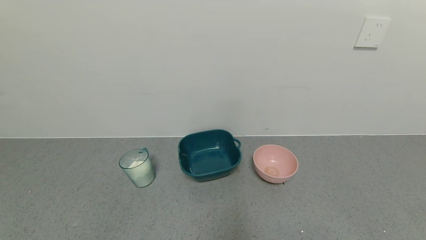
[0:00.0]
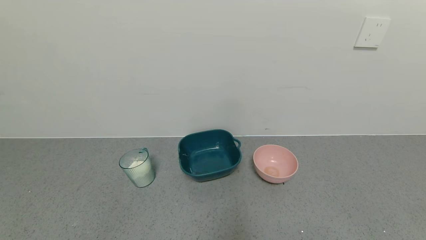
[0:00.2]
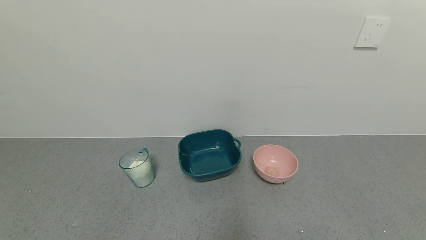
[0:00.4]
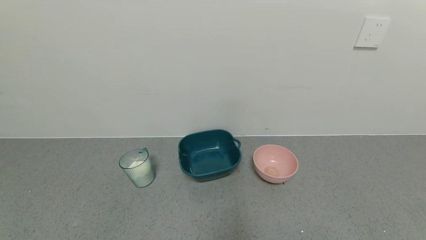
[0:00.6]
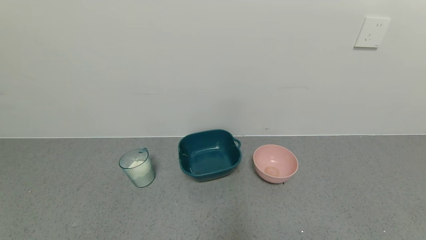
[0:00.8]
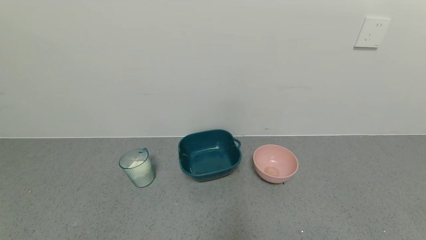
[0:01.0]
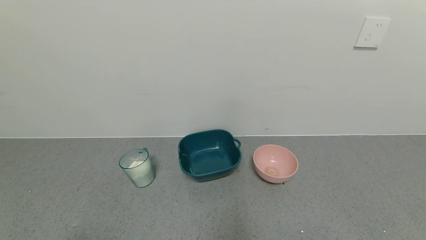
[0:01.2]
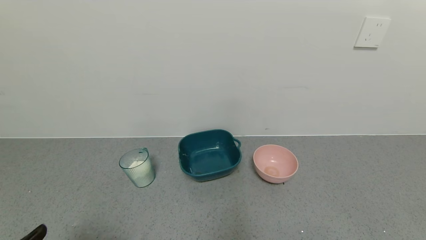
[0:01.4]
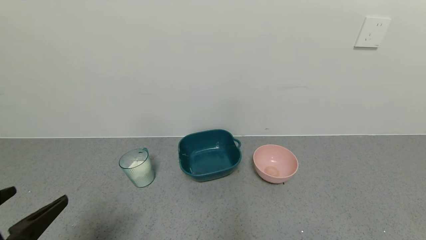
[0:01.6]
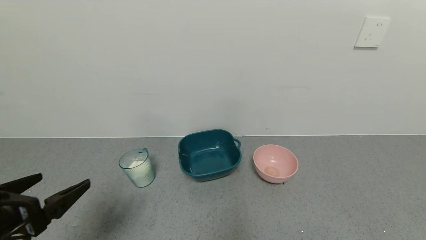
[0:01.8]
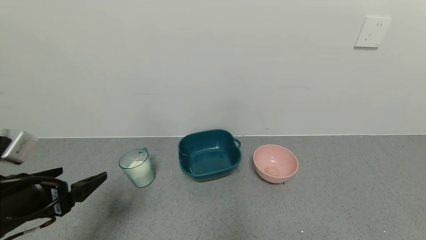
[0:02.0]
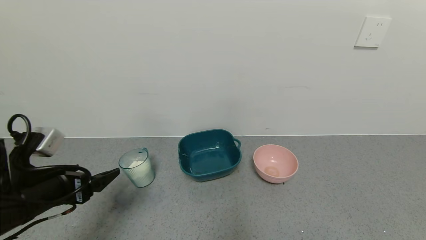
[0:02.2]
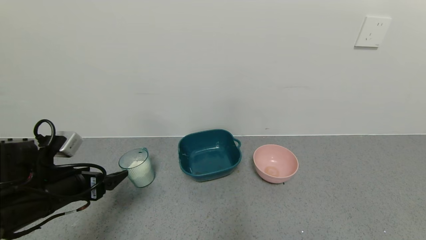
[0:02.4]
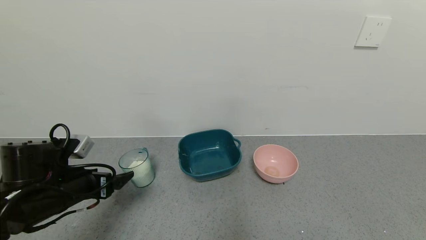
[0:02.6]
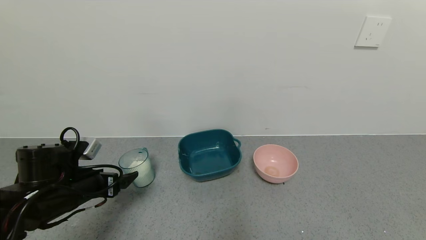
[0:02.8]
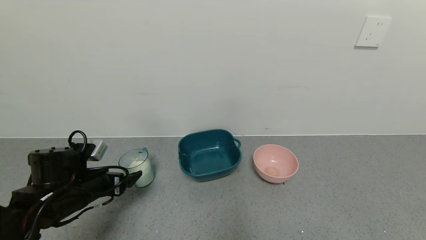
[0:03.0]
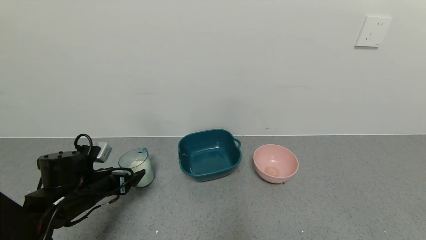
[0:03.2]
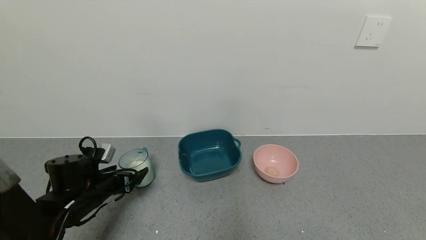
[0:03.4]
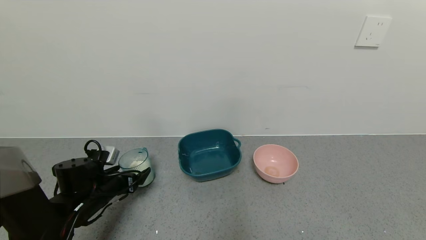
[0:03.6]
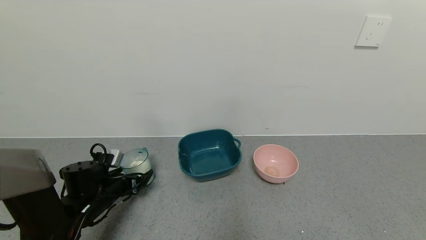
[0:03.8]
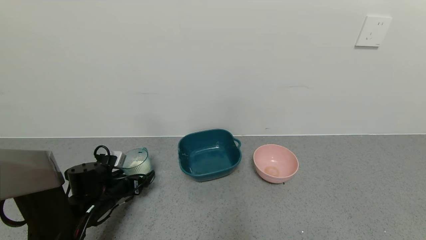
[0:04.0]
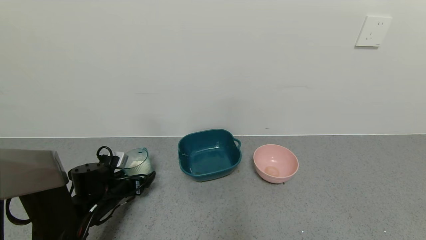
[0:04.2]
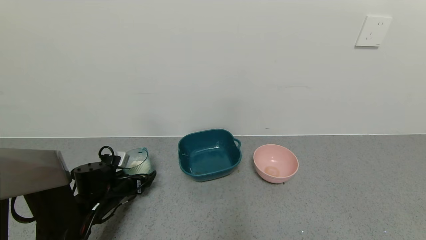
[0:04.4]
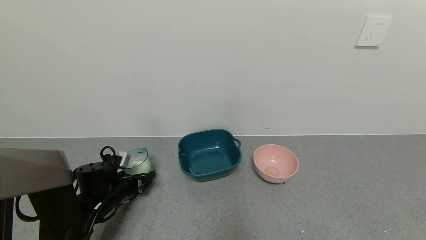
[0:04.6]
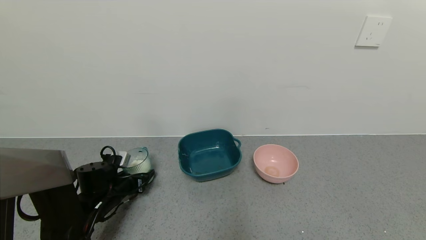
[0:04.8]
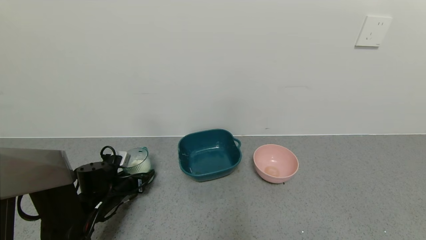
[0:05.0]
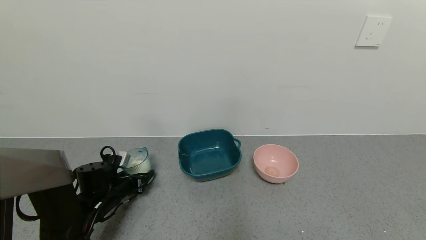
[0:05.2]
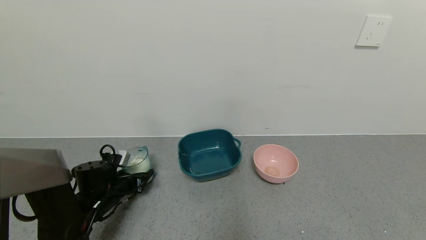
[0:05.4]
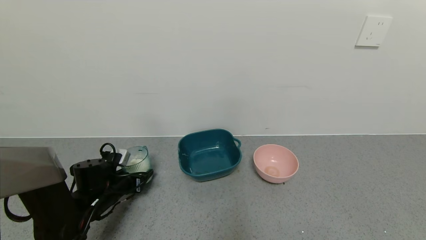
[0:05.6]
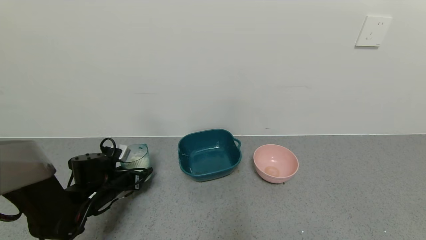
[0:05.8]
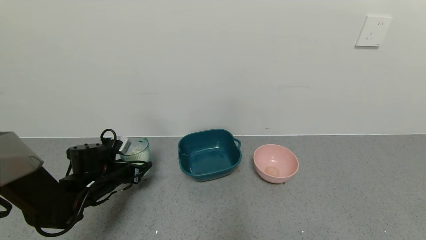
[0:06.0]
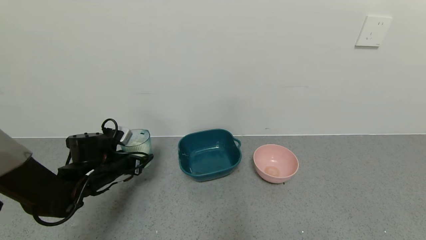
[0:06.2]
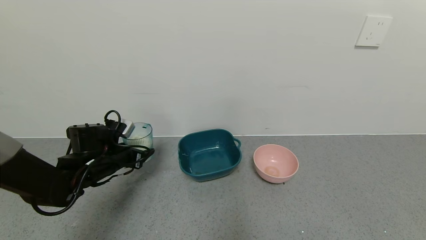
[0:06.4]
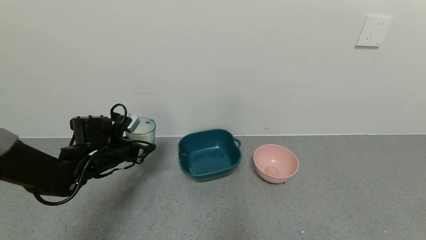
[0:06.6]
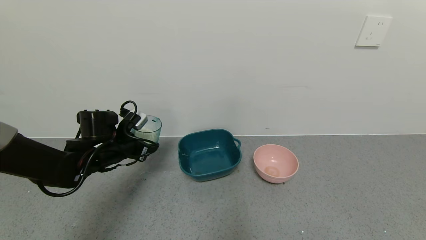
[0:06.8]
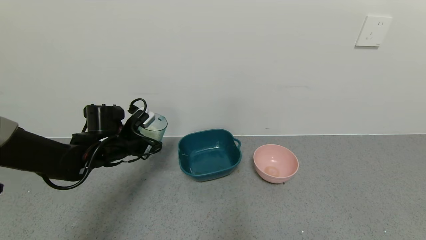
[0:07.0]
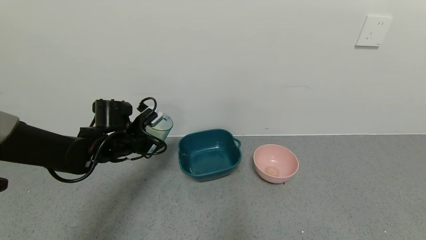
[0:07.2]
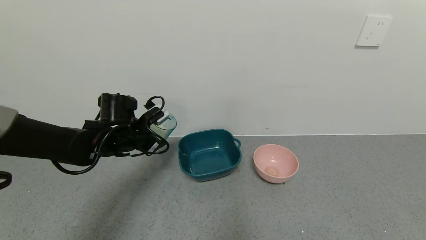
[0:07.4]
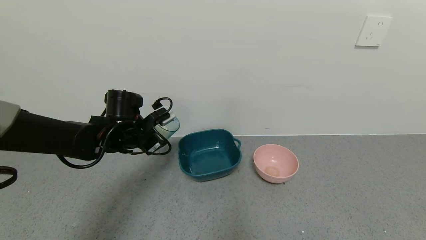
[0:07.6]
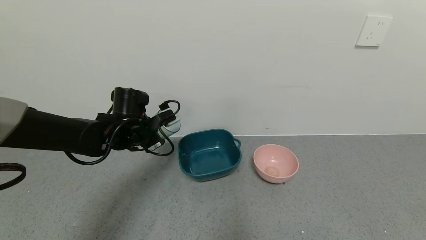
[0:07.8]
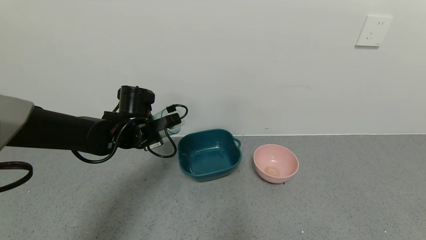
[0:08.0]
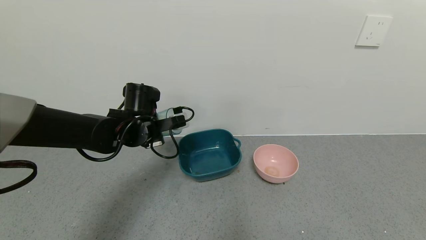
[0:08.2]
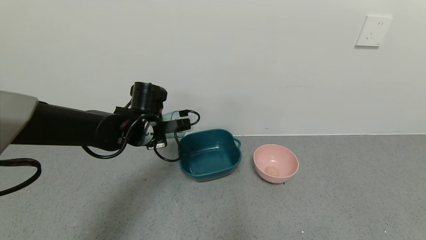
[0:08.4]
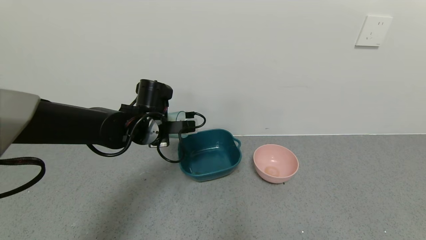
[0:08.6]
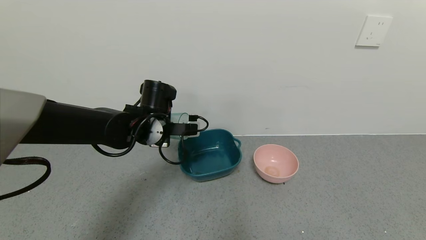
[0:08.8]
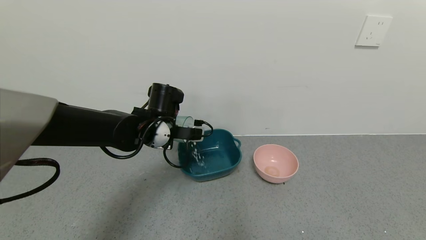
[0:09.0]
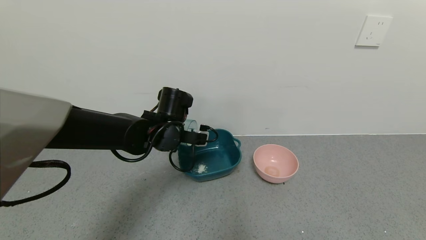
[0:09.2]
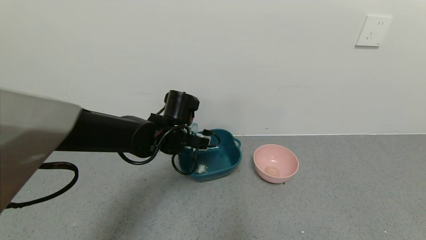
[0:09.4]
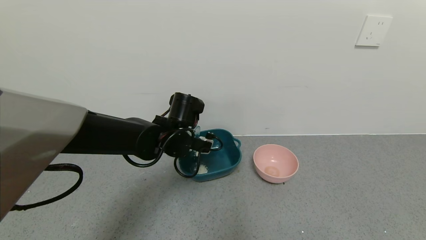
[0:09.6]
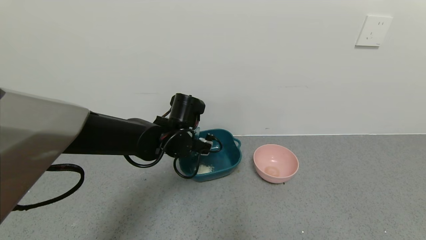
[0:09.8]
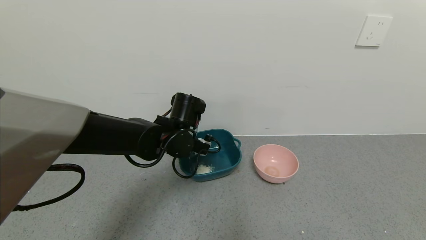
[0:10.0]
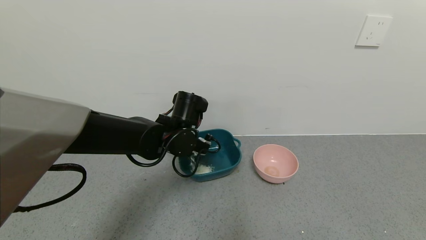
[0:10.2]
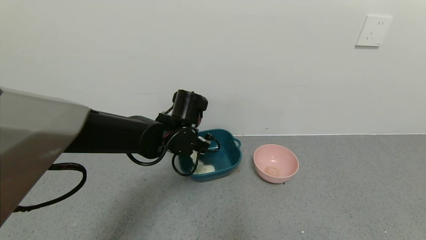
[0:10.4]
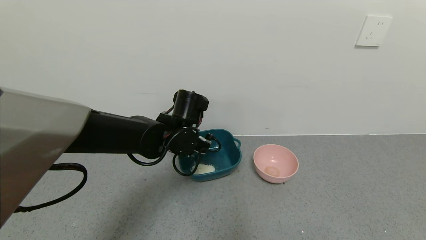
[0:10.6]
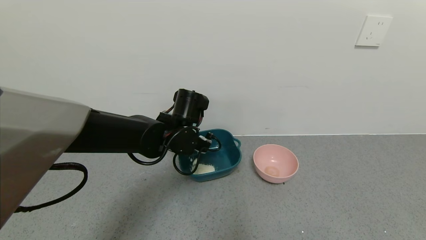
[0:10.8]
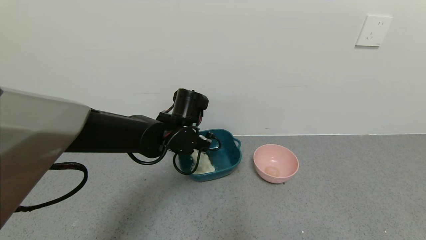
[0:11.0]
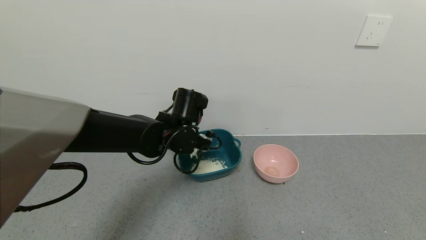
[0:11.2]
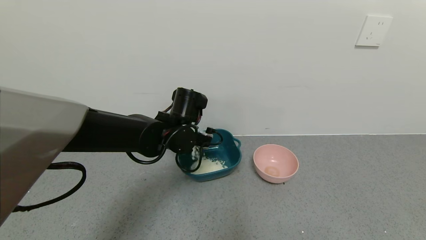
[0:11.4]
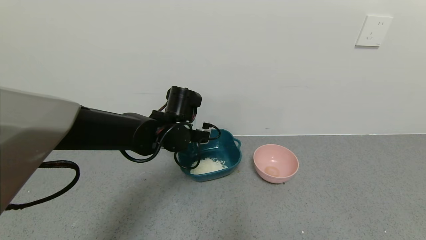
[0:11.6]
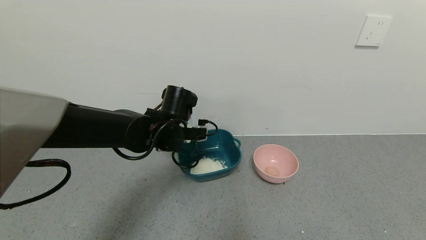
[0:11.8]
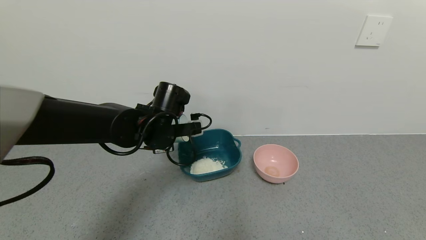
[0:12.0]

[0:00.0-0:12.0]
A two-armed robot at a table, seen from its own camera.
Task of the whole recording: use a gripper to pick up the cup and pour the powder into a bowl or tray.
Step, 0:00.0 to 0:04.6: Pick up blue cup filled with milk powder with left gripper.
Step, 0:04.8 to 0:11.8: Pour the milk powder into the blue basin with left gripper.
0:00.0 to 0:01.6: The left gripper travels upward and forward by some 15 cm.
0:01.6 to 0:03.0: The left gripper is displaced forward and downward by approximately 20 cm.
0:03.0 to 0:04.4: The left gripper shifts approximately 10 cm downward and forward.
0:04.4 to 0:06.0: The left gripper goes approximately 5 cm upward, and closes up.
0:06.0 to 0:07.6: The left gripper moves upward and to the right, some 10 cm.
0:07.6 to 0:09.0: The left gripper travels to the right by about 10 cm.

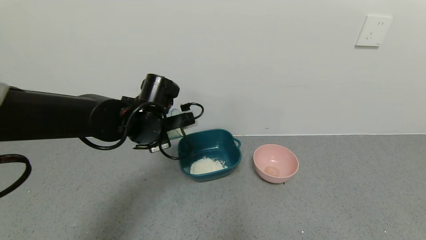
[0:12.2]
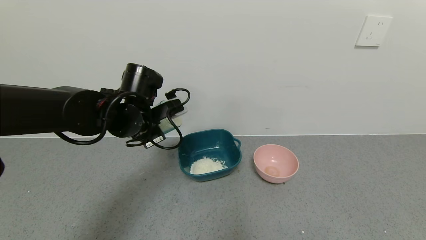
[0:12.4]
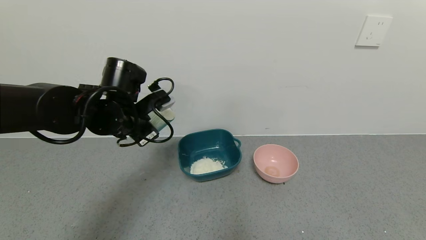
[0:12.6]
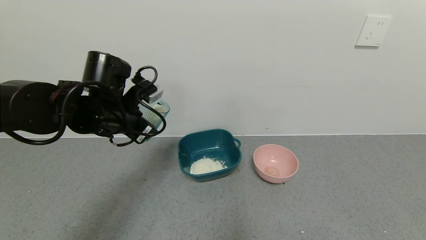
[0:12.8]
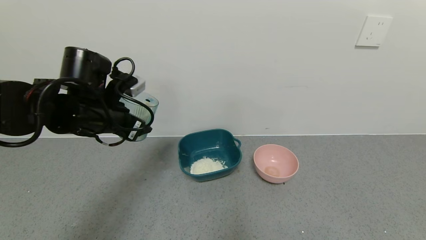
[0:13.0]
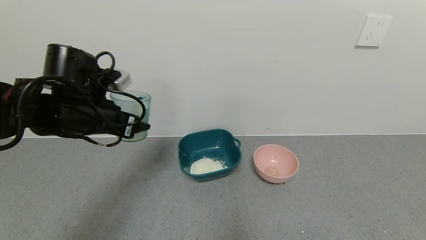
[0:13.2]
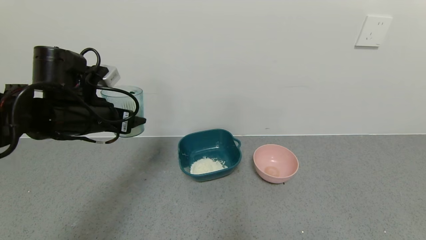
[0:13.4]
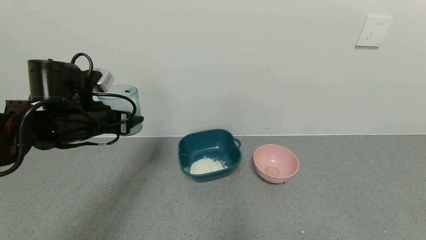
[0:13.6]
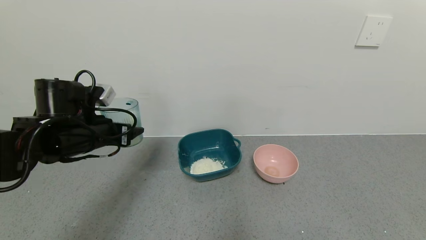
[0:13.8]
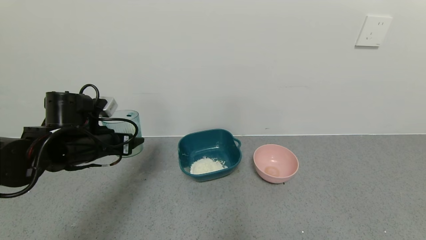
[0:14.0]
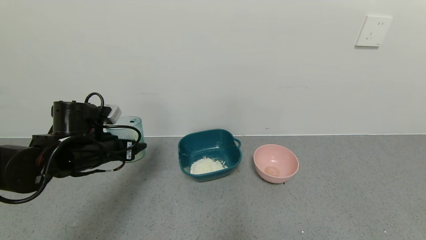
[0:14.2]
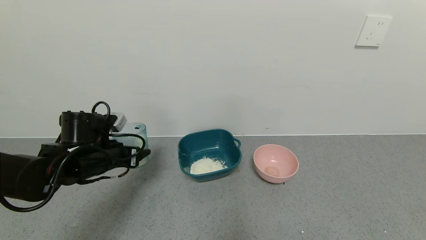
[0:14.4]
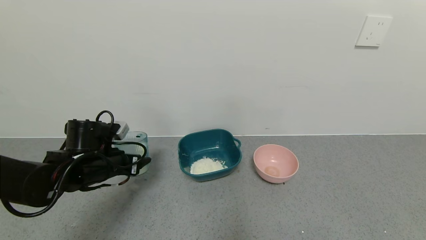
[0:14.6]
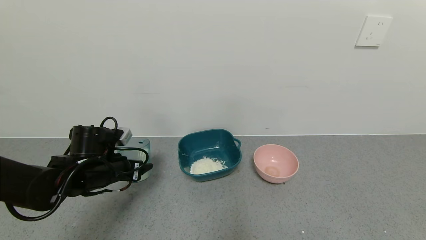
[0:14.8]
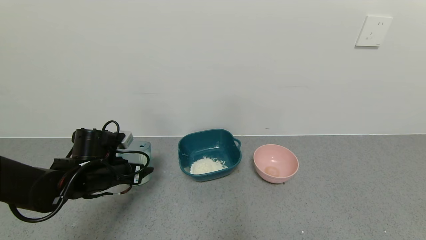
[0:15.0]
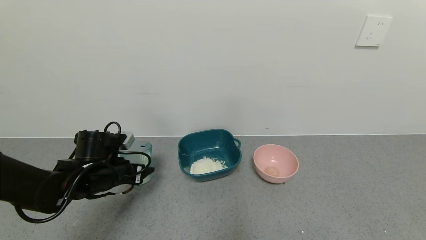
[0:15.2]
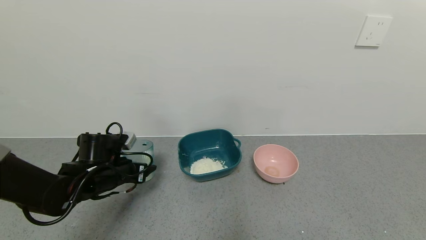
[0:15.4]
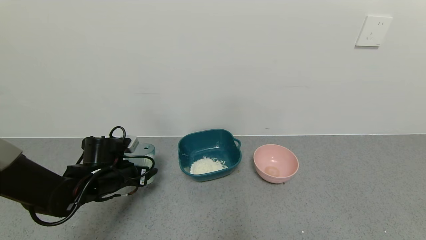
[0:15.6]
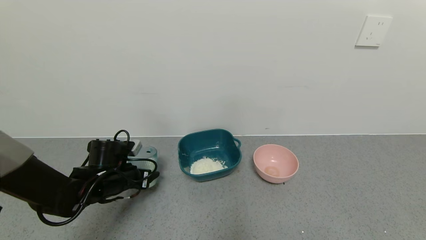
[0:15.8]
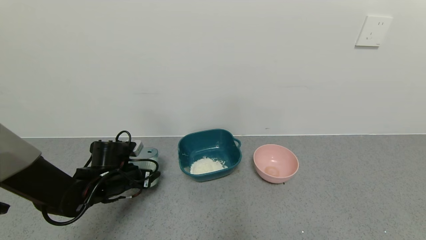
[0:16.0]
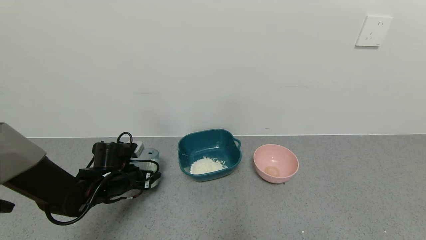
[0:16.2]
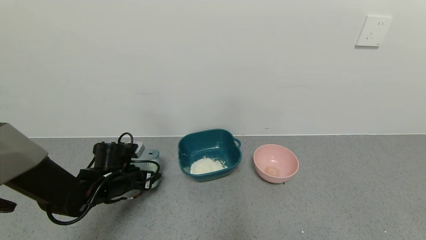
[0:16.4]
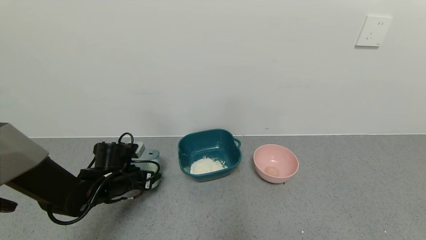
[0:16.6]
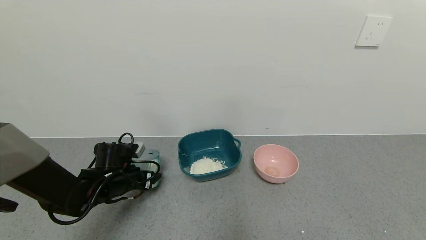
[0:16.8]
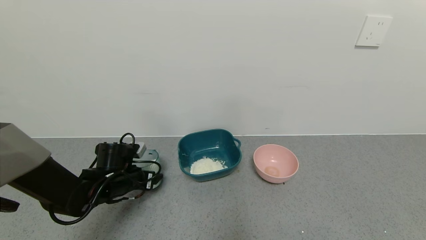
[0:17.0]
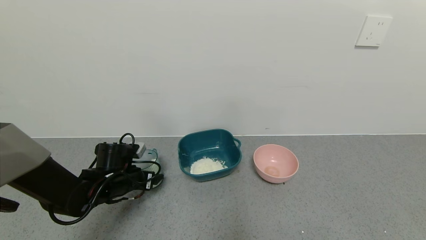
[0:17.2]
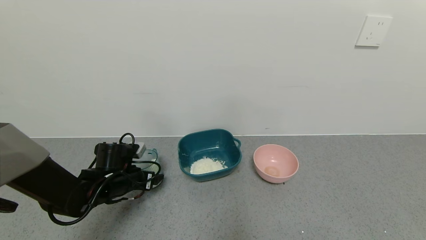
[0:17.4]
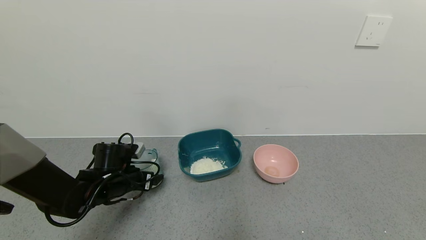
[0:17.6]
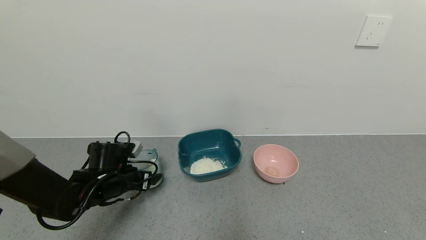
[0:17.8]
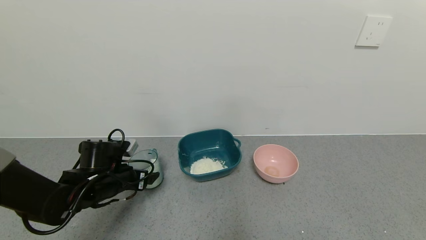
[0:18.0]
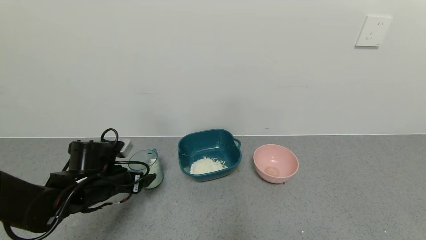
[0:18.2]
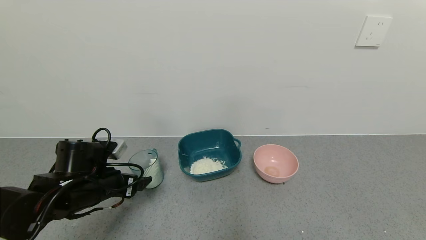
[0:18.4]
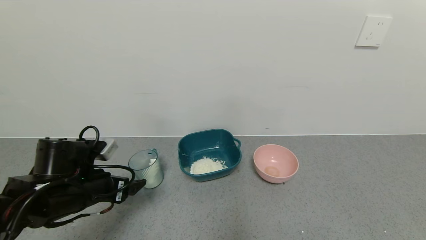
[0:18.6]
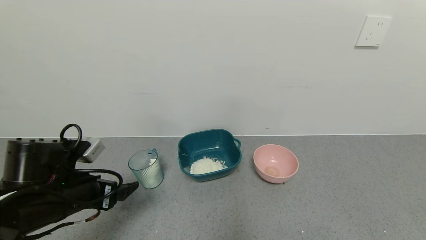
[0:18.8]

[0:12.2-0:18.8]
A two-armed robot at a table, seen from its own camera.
Task of the whole recording: use a gripper to pick up the cup and pour the powder into a bowl or tray.
Step, 0:12.2 to 0:17.2: Place blue cup with milk powder on the table with left gripper.
0:12.2 to 0:13.8: The left gripper travels to the left by approximately 10 cm.
0:13.8 to 0:15.4: The left gripper heads downward, covering approximately 10 cm.
0:15.4 to 0:17.2: The left gripper opens.
0:17.2 to 0:18.8: The left gripper travels backward and upward by about 15 cm.
